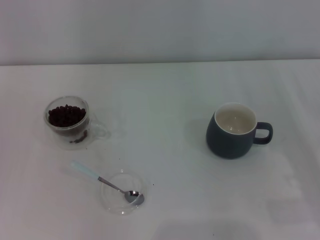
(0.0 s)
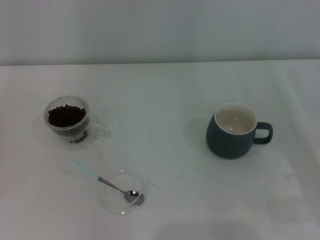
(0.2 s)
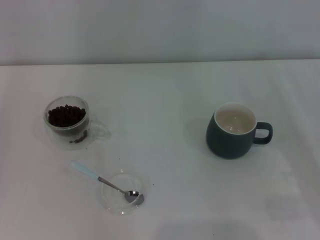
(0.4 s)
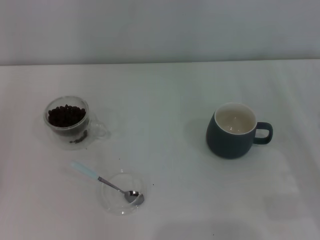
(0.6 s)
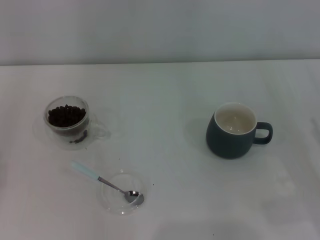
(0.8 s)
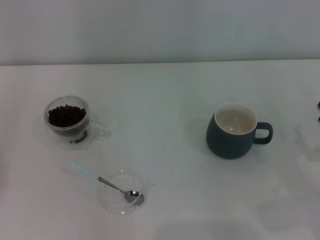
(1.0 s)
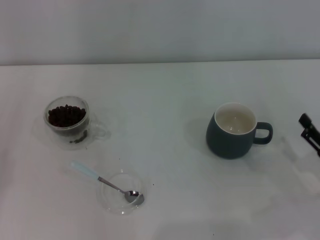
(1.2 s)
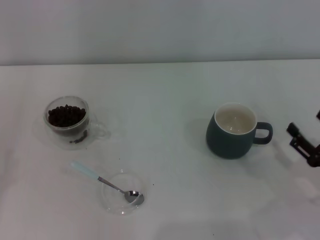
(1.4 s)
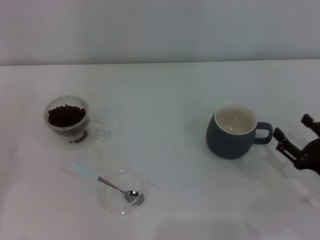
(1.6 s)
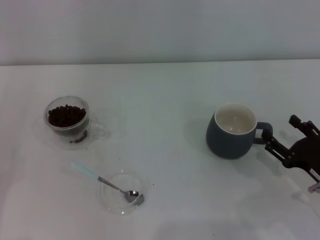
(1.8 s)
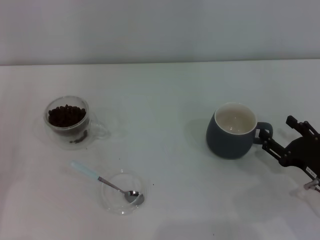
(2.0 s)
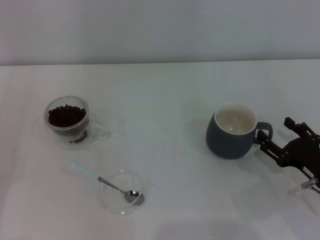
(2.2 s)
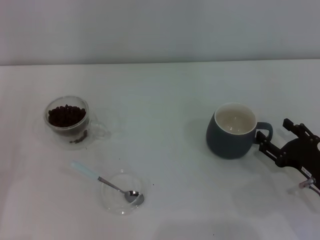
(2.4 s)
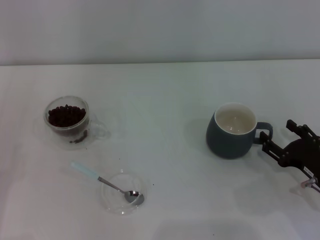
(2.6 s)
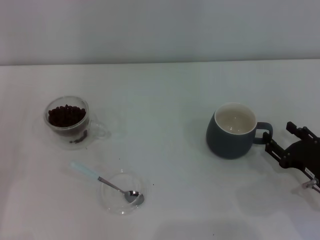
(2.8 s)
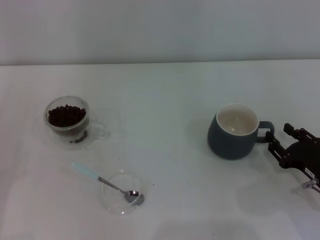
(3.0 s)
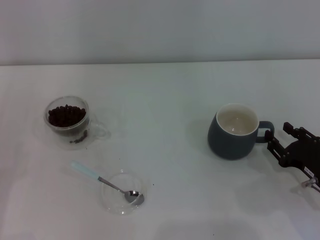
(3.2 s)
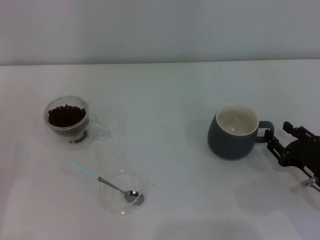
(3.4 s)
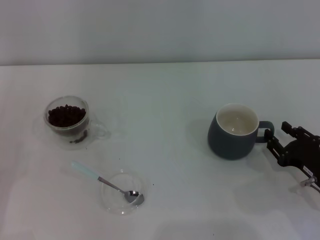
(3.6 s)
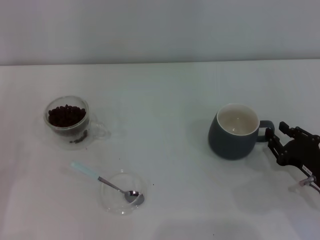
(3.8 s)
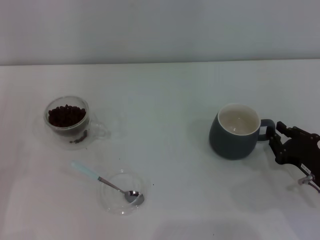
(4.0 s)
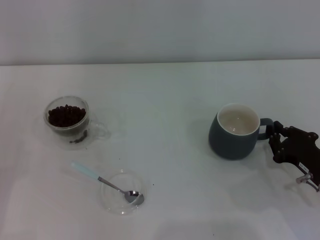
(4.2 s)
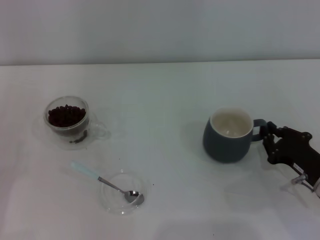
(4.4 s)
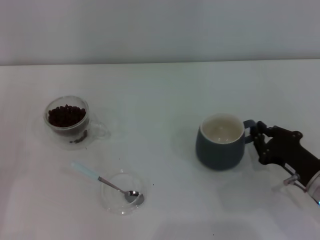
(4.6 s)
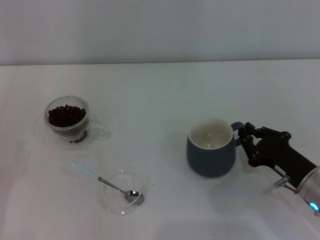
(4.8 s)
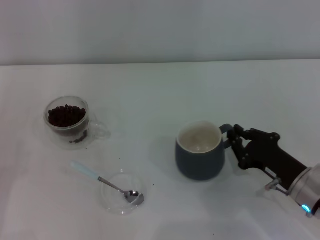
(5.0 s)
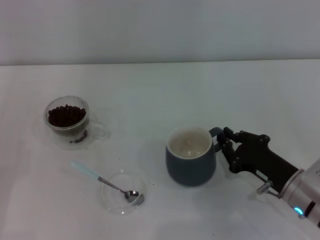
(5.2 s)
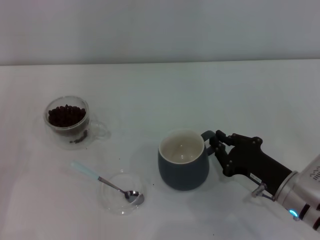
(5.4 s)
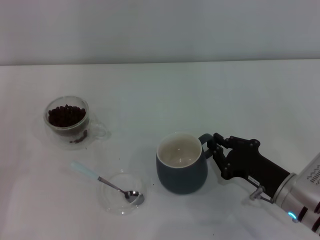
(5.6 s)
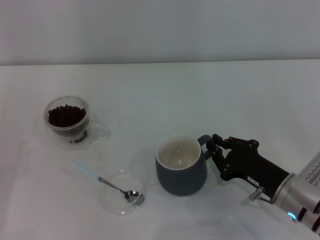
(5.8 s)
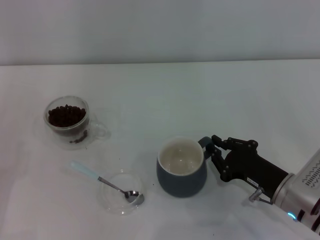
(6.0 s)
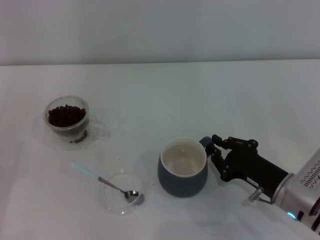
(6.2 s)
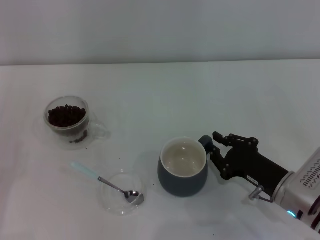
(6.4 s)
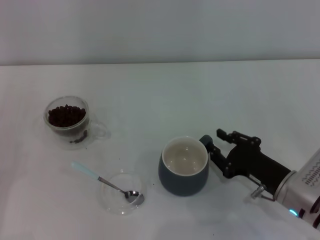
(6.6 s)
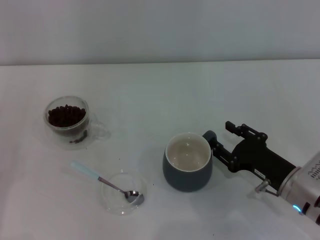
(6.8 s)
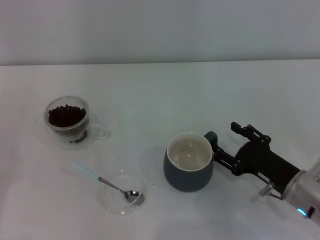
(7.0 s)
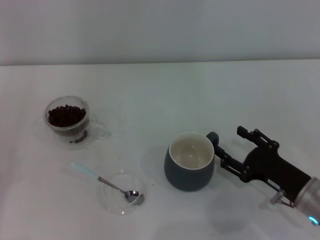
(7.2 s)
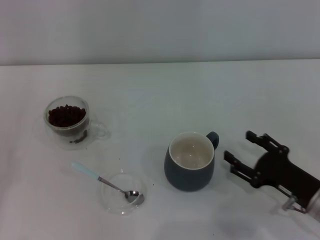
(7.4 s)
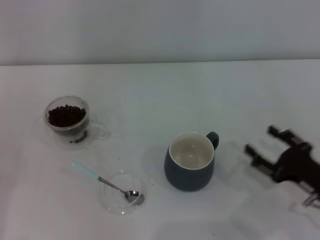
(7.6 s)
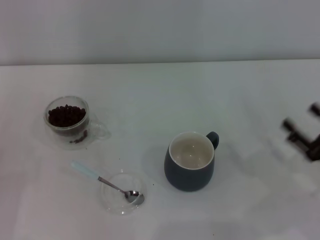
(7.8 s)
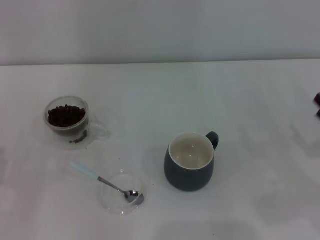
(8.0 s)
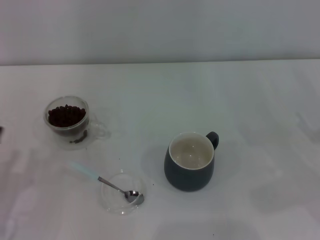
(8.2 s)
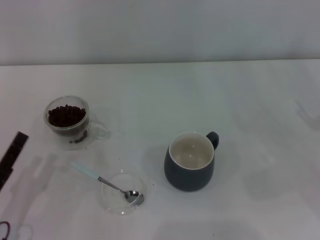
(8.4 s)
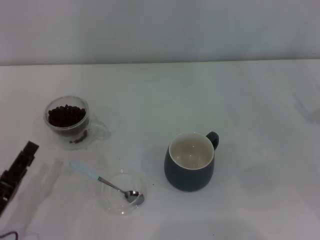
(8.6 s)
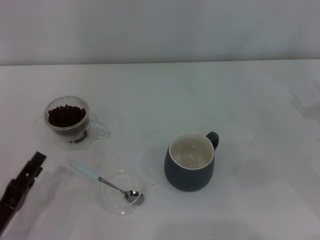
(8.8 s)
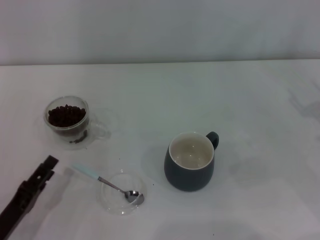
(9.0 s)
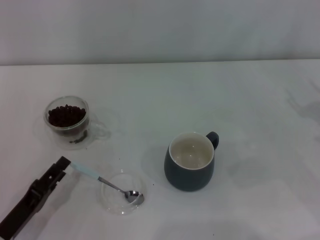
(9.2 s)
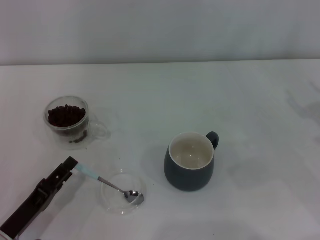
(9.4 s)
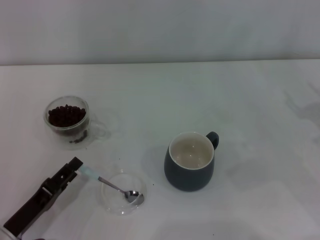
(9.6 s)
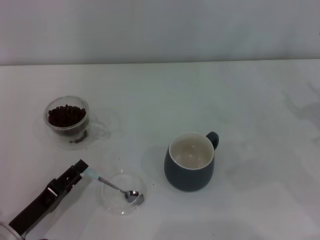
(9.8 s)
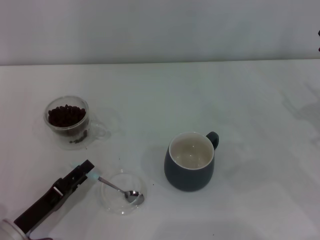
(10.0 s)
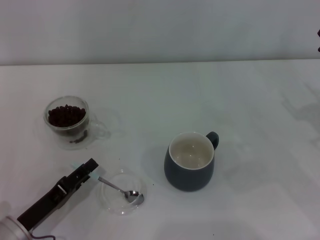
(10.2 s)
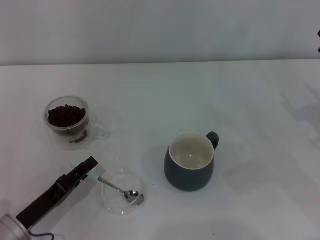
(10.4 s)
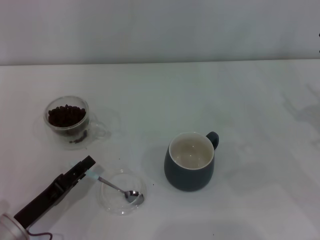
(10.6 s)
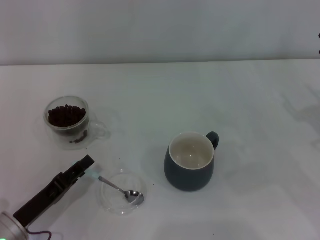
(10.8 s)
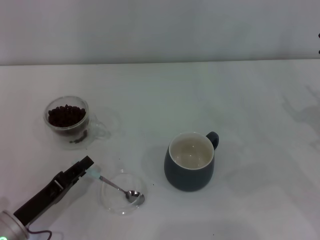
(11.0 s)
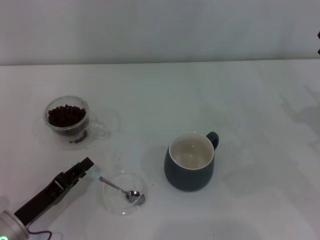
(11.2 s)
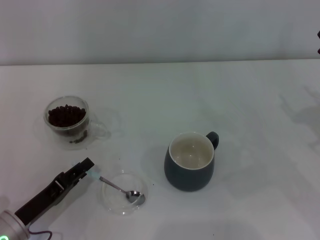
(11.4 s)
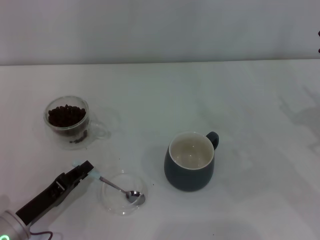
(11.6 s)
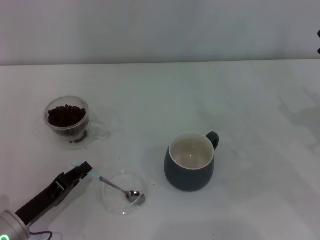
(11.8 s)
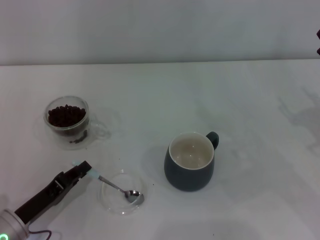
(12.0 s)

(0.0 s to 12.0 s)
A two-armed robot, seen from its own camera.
Task of the whole recording: Use a blue spoon to take out the coffee beans from the glass and pour them into the gray cup.
Step, 0.0 s - 7.2 s: Move the cup to the center of view with the left gripper.
0.0 s - 1.6 s: The right gripper travels to the left by roughly 5 cm.
1.6 s - 3.0 s: The grippers make only small movements.
3.0 s - 4.4 s: The right gripper closes up.
4.4 s - 6.0 s: The right gripper is displaced to the left by roughly 5 cm.
6.0 s - 7.6 s: The right gripper shifts approximately 5 cm to the right, and opens its fingers.
7.6 s - 9.0 s: The left gripper heads to the right, covering some 15 cm. Meanwhile the right gripper moves upward, forward and to the right, roughly 15 cm.
9.0 s - 10.4 s: The grippers stay close to where they were, moving slightly.
10.4 s - 12.0 s: The left gripper closes up.

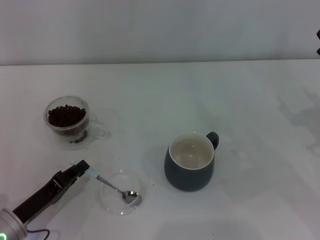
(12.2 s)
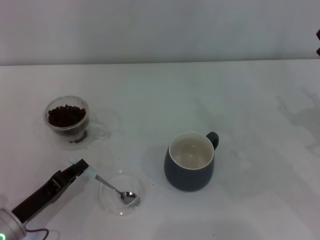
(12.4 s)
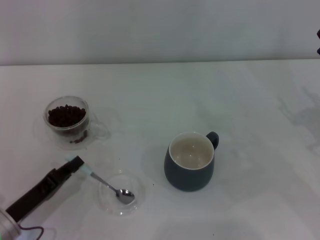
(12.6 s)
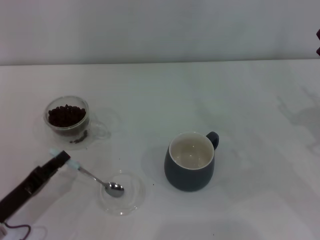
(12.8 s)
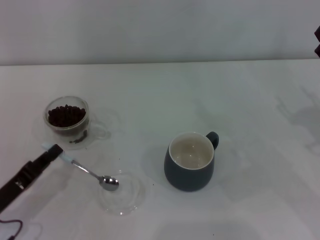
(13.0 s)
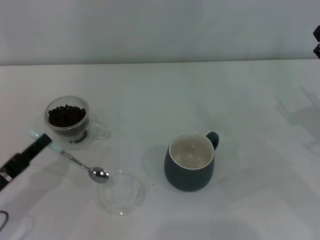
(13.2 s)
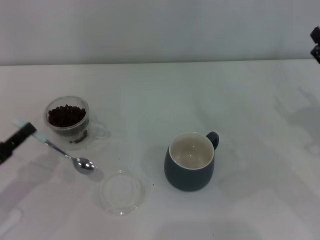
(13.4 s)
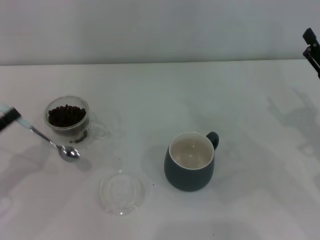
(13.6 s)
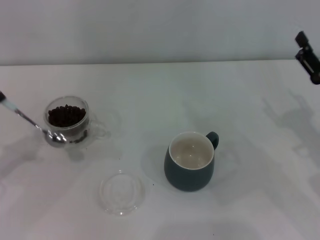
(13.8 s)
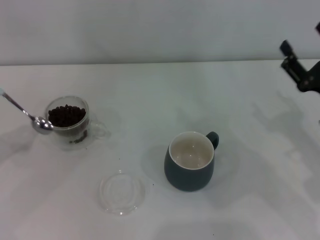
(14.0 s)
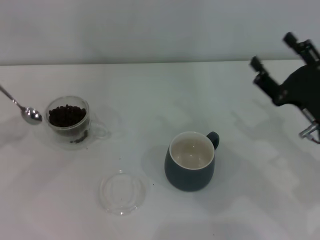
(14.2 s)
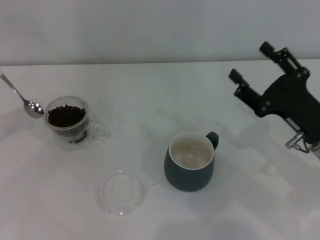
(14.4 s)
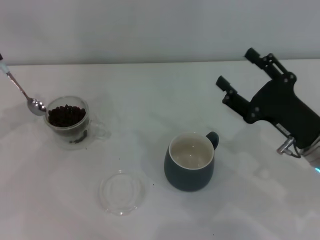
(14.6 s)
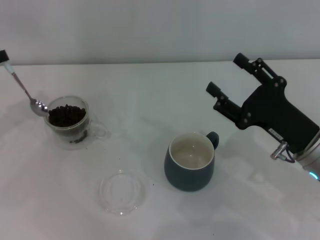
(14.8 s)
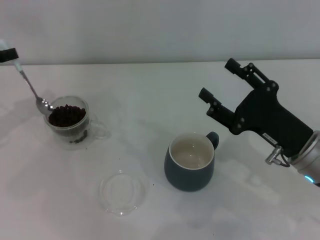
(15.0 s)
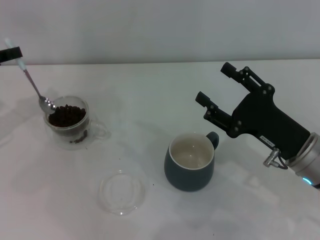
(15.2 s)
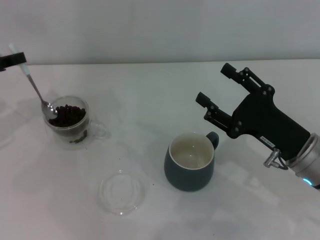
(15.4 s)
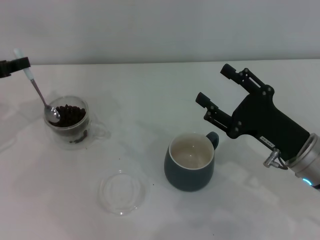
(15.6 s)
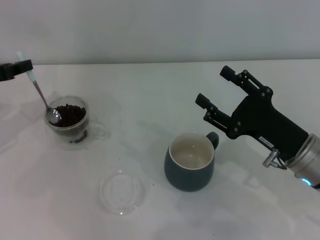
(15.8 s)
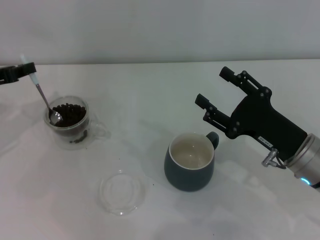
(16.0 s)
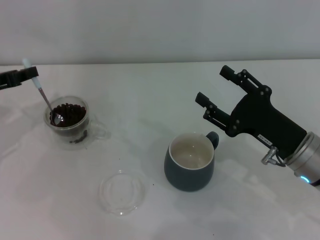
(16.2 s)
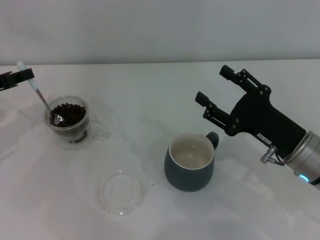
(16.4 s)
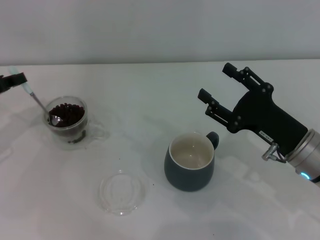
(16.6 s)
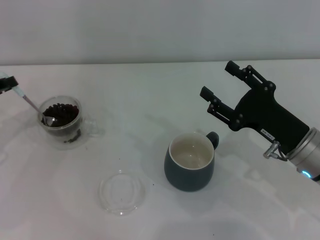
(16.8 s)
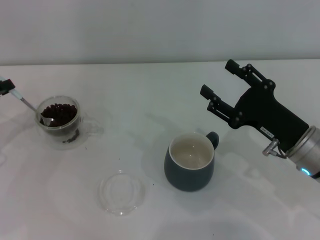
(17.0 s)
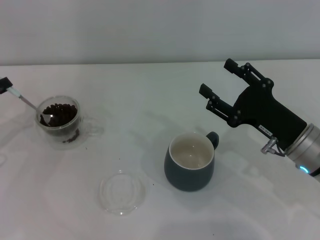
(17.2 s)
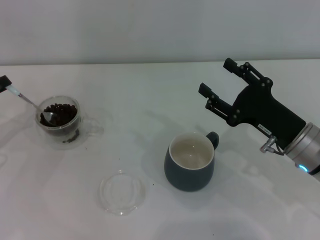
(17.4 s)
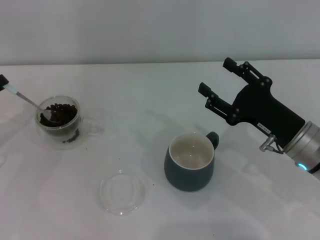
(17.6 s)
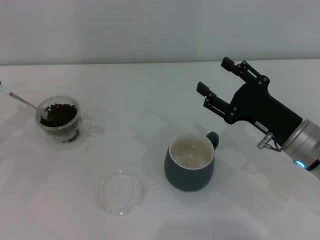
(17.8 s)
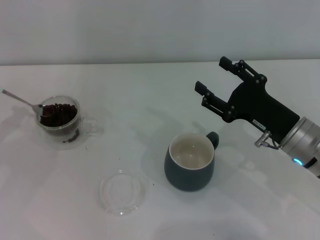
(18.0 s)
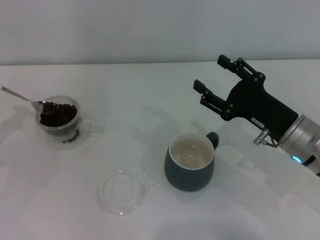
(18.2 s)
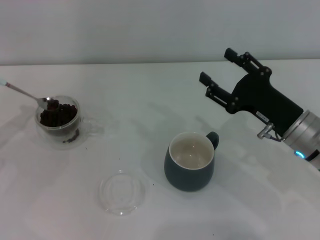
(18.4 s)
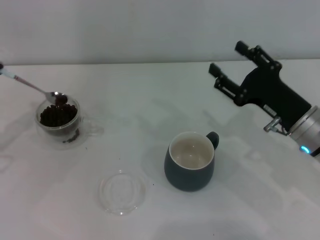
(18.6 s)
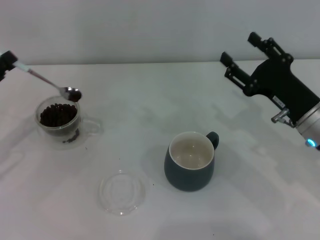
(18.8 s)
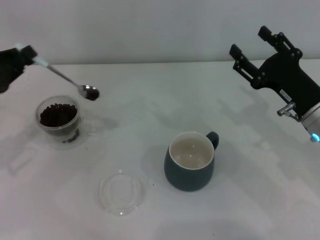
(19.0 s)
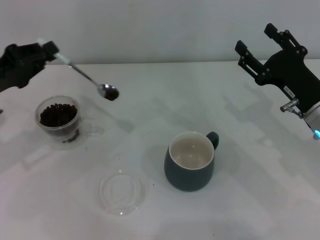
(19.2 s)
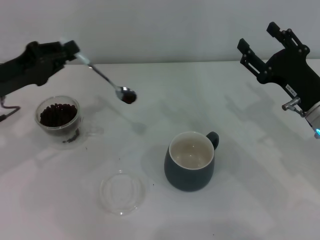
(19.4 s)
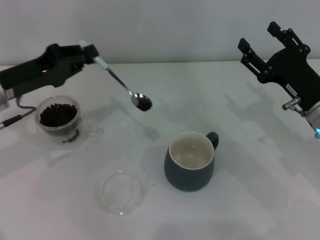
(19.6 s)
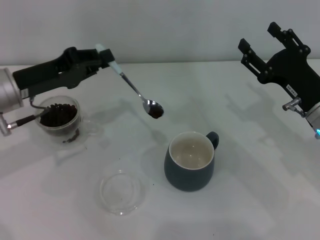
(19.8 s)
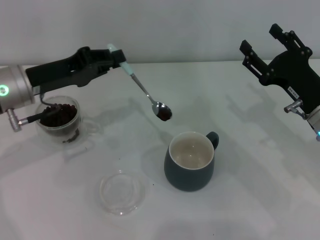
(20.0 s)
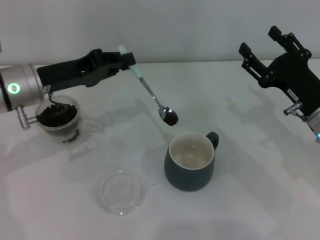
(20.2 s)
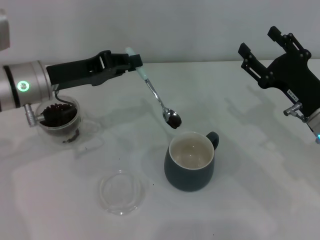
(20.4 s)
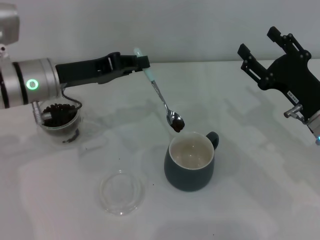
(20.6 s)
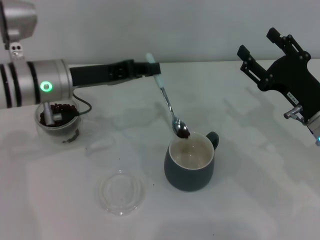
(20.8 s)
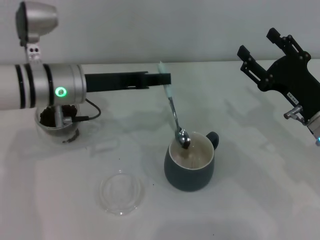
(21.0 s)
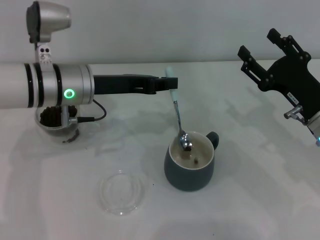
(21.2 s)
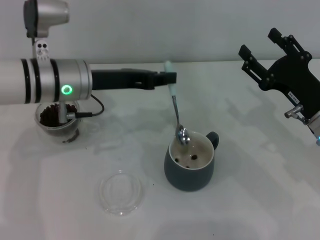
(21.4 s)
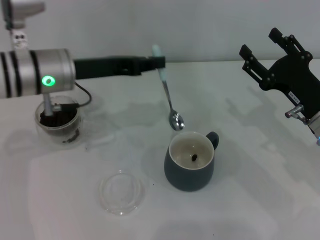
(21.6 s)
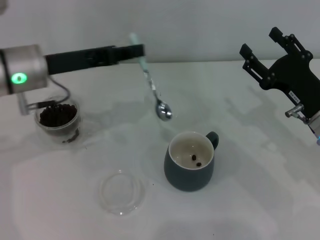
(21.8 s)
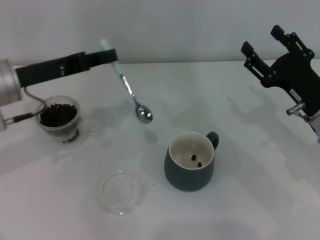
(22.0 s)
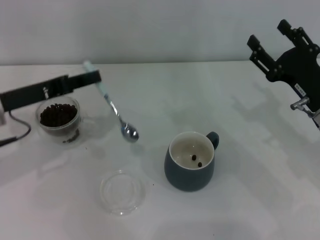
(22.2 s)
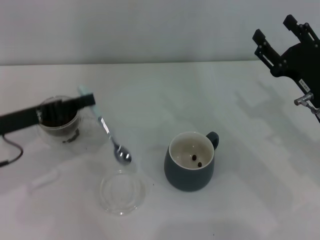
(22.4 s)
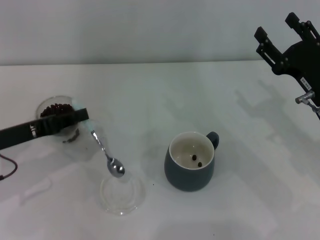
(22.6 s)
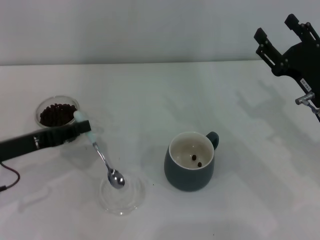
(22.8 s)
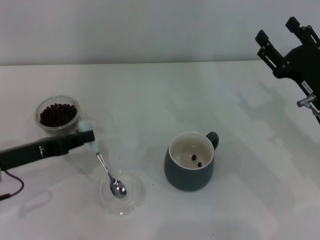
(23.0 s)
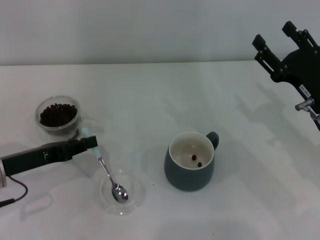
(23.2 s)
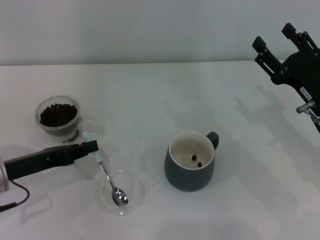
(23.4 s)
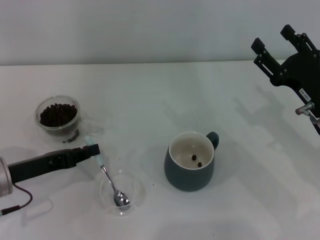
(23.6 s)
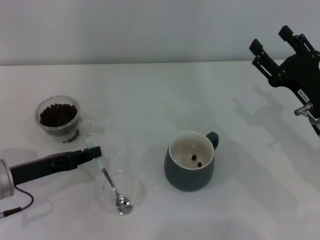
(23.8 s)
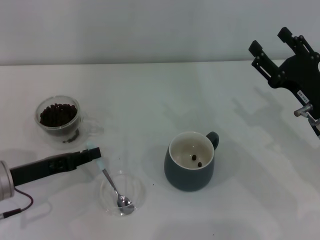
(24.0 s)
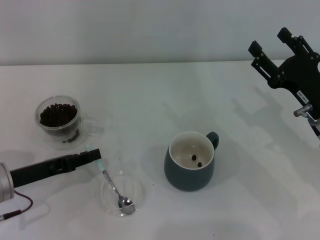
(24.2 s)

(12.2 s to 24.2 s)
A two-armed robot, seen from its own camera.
Task of the whole recording: Use a blue spoon to take out the coffee beans from the glass and pour them into the gray cup.
Step, 13.2 s - 21.2 s: Scoop a spoonful of beans into the cup with the right gripper.
12.2 s - 13.8 s: The left gripper moves to the left and upward, approximately 15 cm.
13.8 s - 15.2 s: The left gripper travels forward and upward by roughly 15 cm; the right gripper heads to the left, covering approximately 10 cm.
15.2 s - 16.6 s: The left gripper moves about 5 cm.
16.6 s - 18.2 s: The left gripper shifts by some 5 cm.
18.2 s - 19.8 s: The left gripper shifts roughly 15 cm to the right.
19.8 s - 21.2 s: The left gripper travels to the right by some 10 cm.
21.2 s - 22.6 s: The left gripper is displaced to the left and backward by roughly 15 cm.
22.6 s - 24.2 s: The left gripper shifts roughly 5 cm downward.
